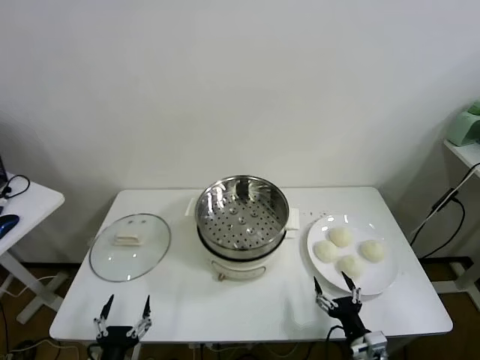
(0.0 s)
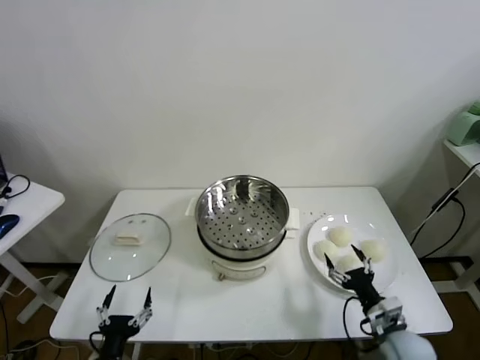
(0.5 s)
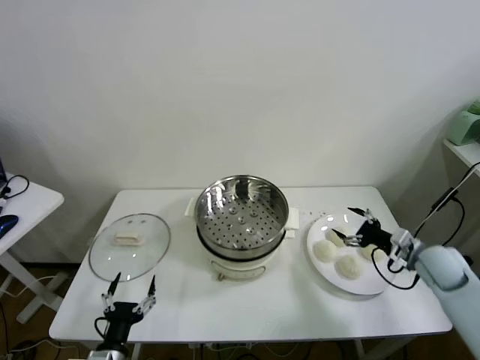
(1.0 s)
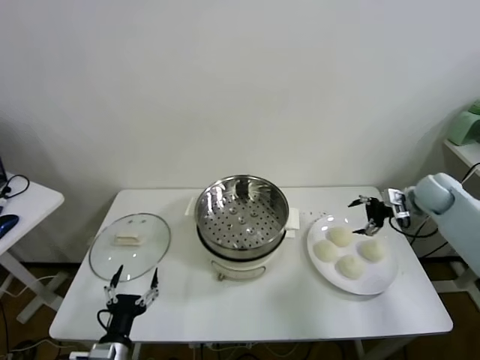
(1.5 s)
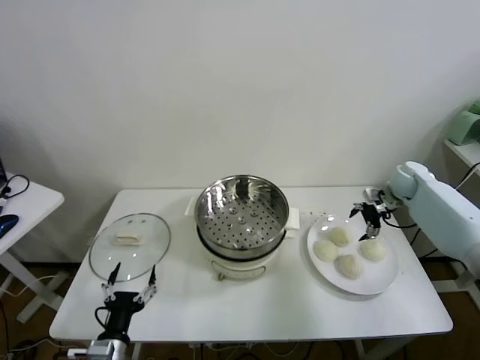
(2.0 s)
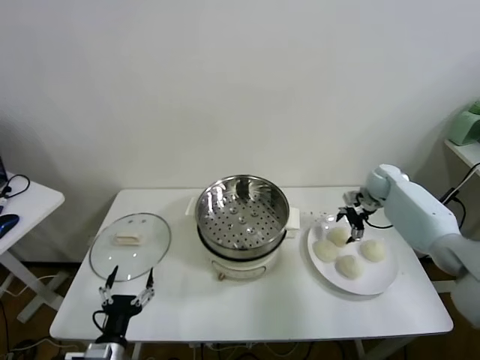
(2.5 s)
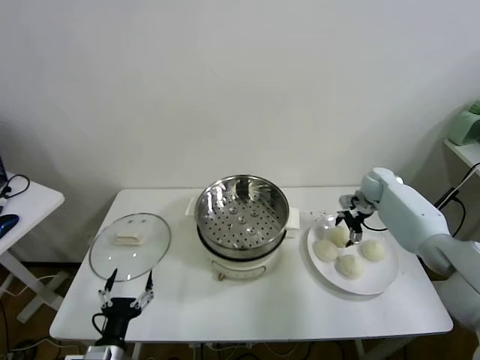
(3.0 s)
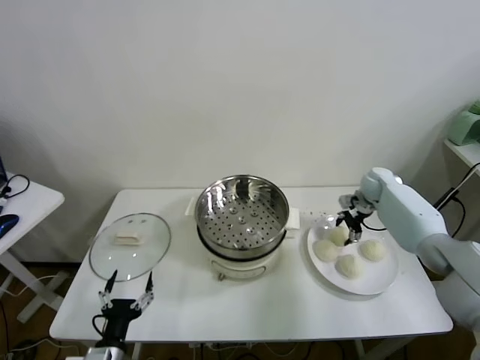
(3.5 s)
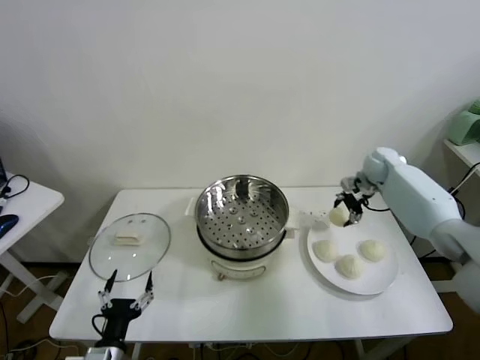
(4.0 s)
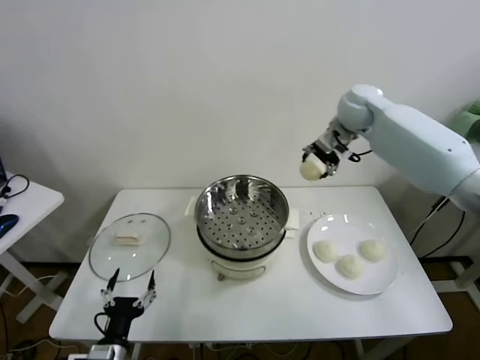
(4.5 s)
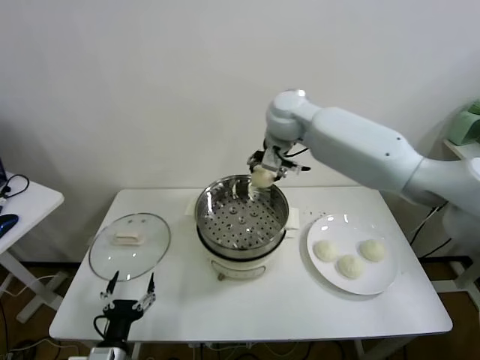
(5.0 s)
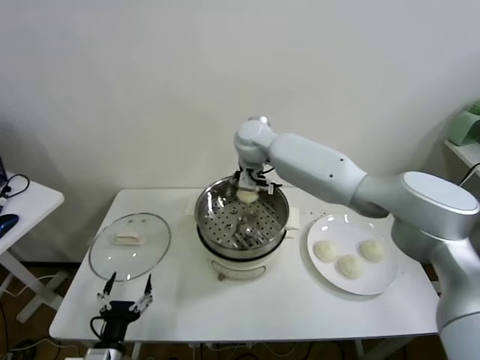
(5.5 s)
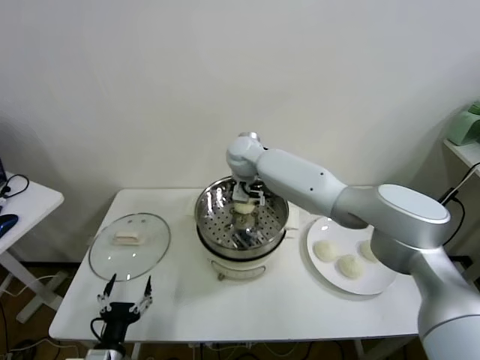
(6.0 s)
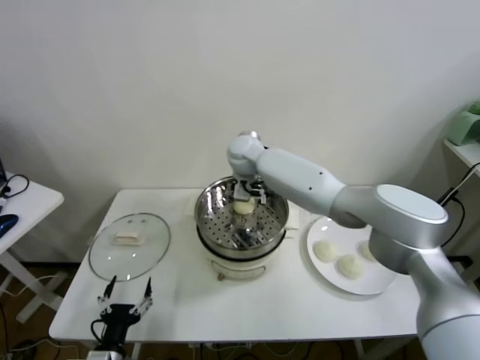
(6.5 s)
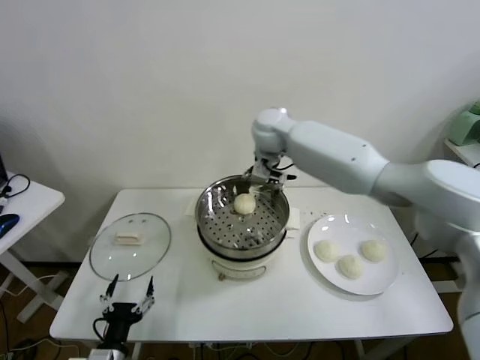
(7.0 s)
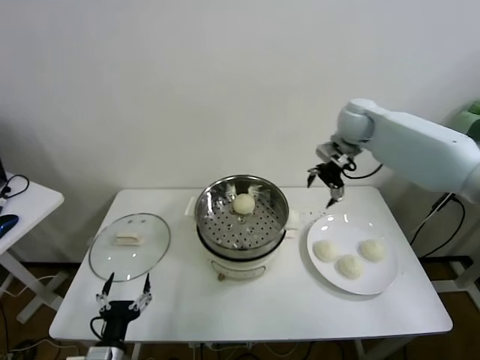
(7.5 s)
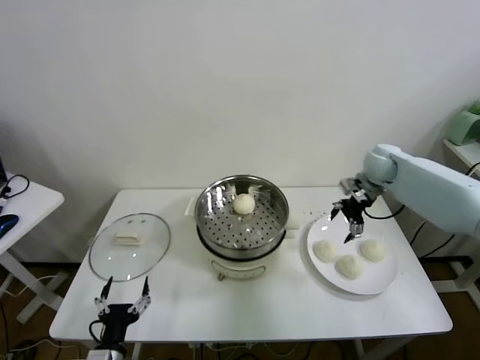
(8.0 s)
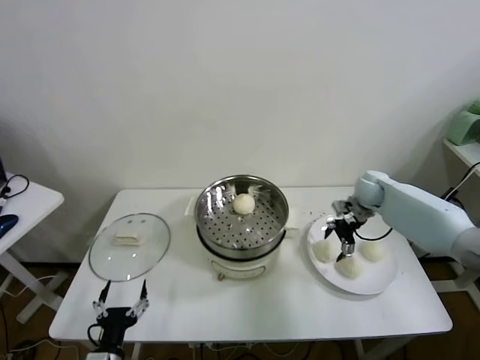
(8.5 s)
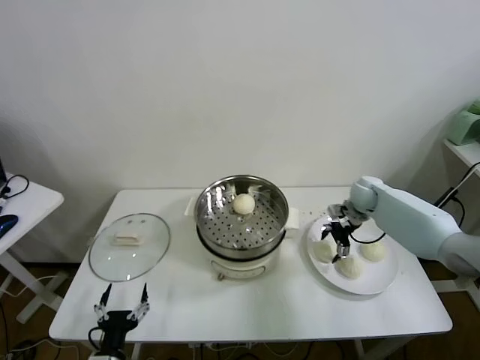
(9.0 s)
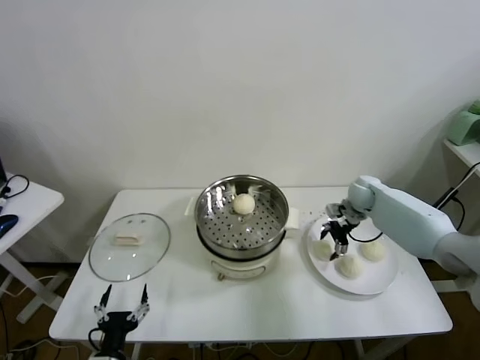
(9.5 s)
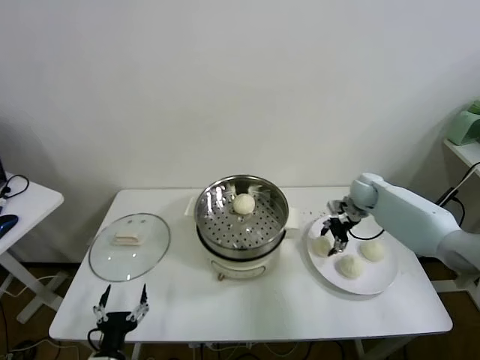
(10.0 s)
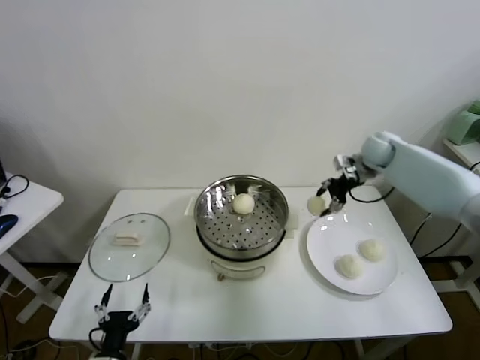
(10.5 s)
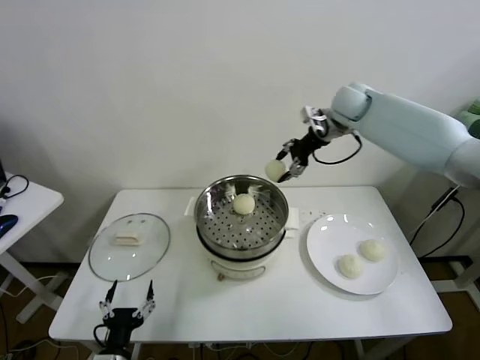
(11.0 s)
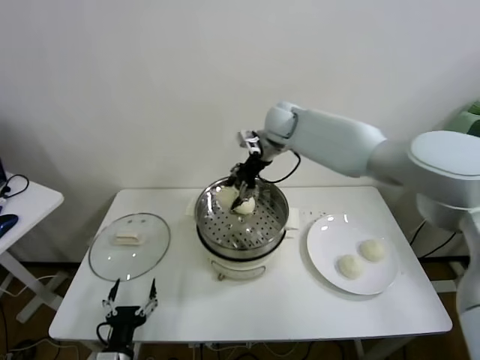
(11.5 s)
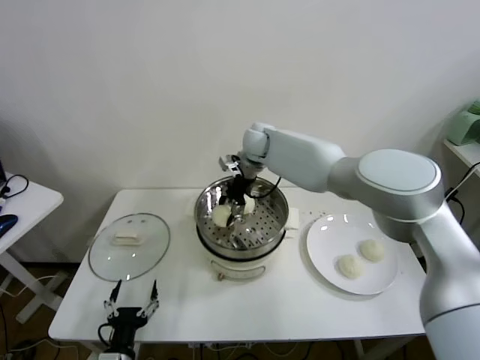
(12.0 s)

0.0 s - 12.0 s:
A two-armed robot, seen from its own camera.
Task of the whole recording: take steamed baozi put them in steamer.
Step, 0.0 s - 3.0 s: Grasp the baozi in the plate with right gripper.
Step, 3.5 s - 6.5 s: Place the baozi on the steamer with right gripper.
Step, 7.0 s - 9.5 s: Grasp the baozi in the plate with right gripper.
2.0 s - 4.0 s: The right gripper goes some 10 cm upward and to the left, and closes.
4.0 s - 6.0 s: The right gripper heads to the left, covering some 35 cm.
6.0 s - 8.0 s: The right gripper is displaced to the right by roughly 35 cm, and opens up.
8.0 s - 10.0 s: The right gripper goes about 5 cm downward, and closes its fingers.
10.0 s - 12.0 s: The right gripper travels to the left and upward by roughly 35 cm.

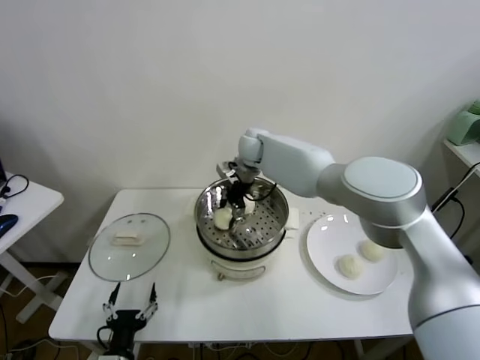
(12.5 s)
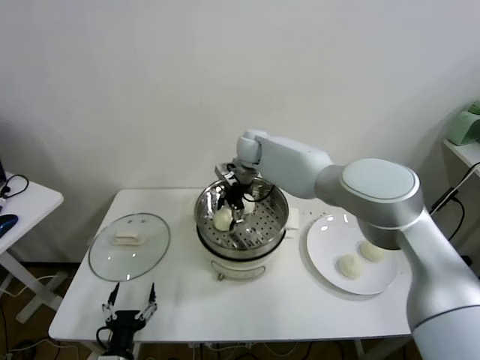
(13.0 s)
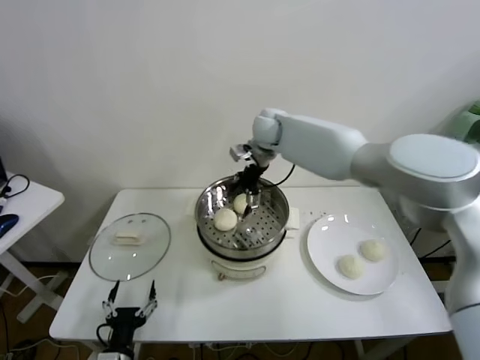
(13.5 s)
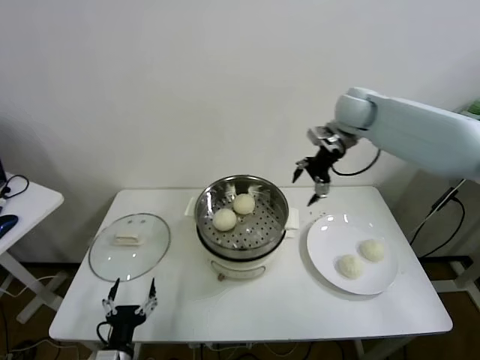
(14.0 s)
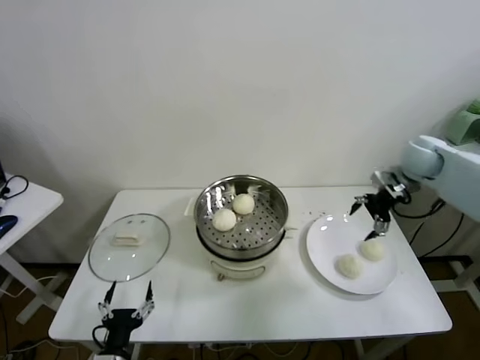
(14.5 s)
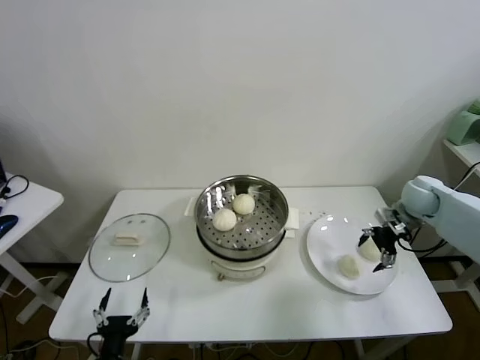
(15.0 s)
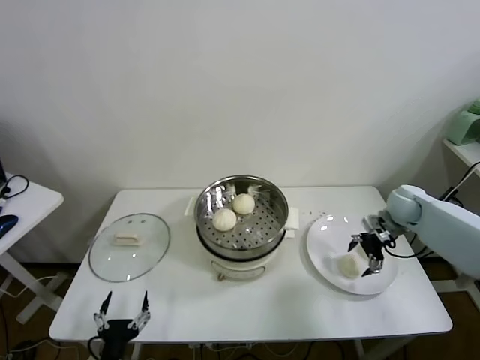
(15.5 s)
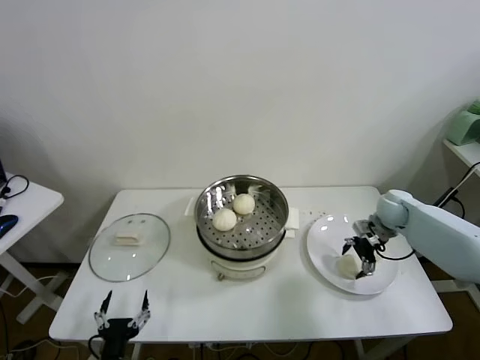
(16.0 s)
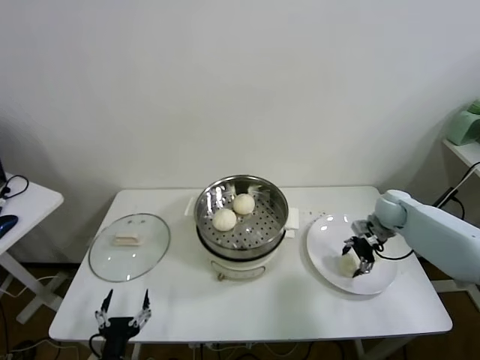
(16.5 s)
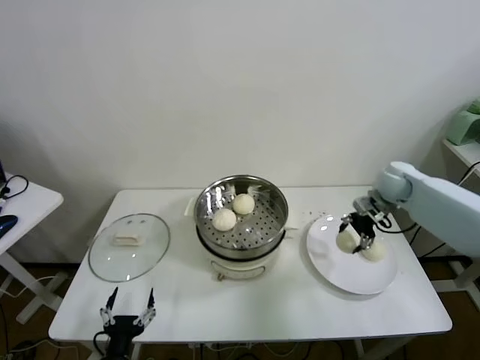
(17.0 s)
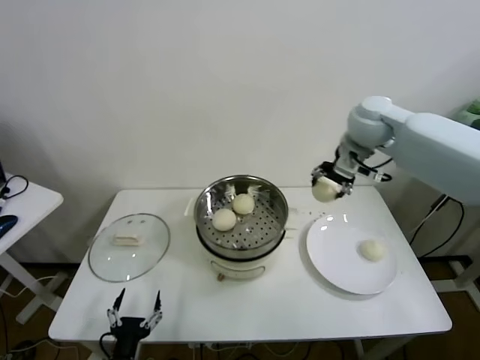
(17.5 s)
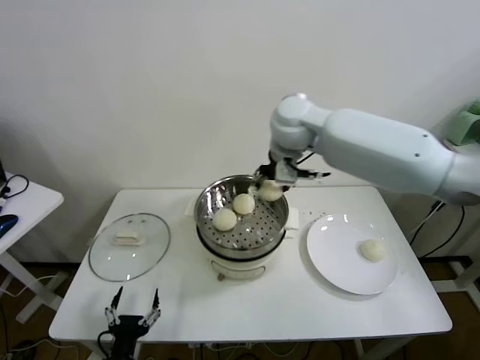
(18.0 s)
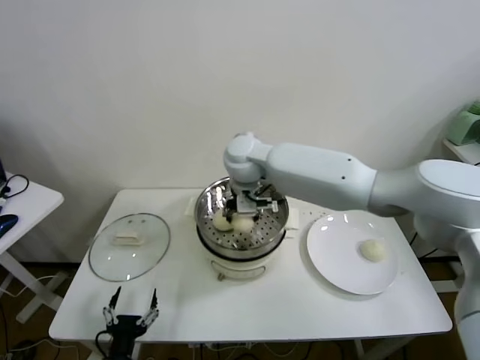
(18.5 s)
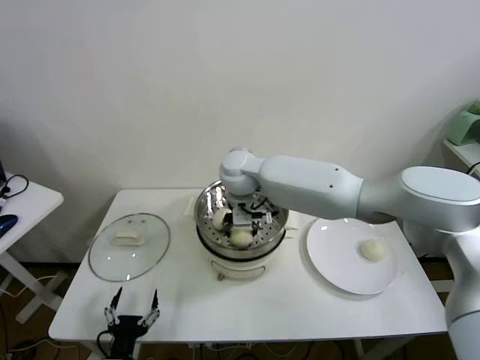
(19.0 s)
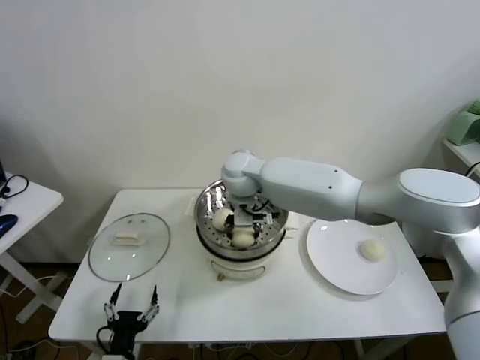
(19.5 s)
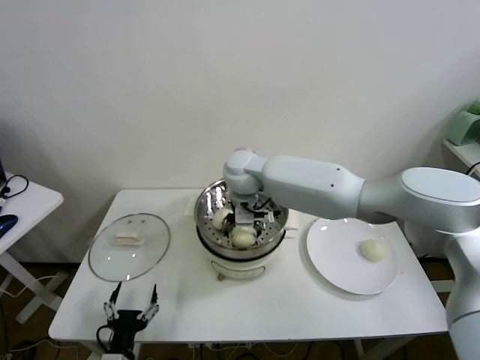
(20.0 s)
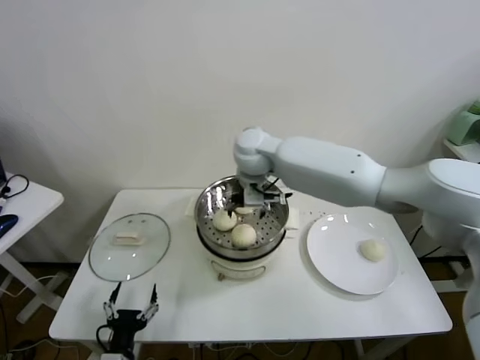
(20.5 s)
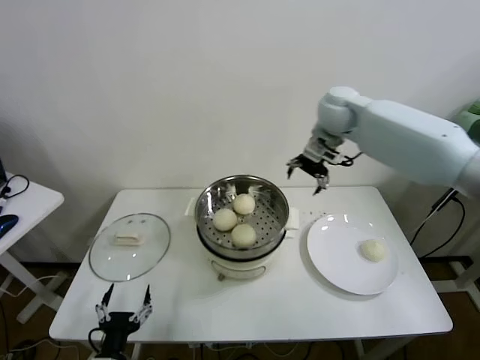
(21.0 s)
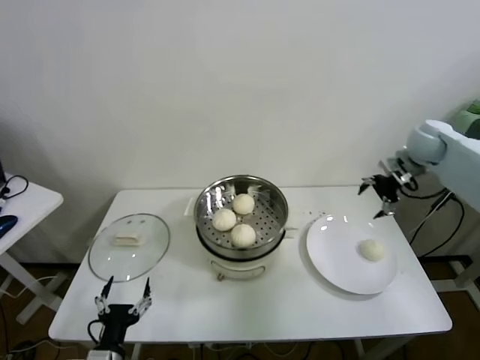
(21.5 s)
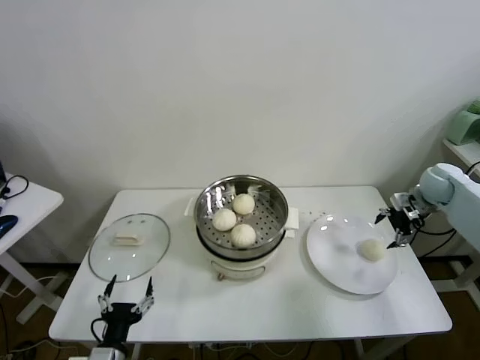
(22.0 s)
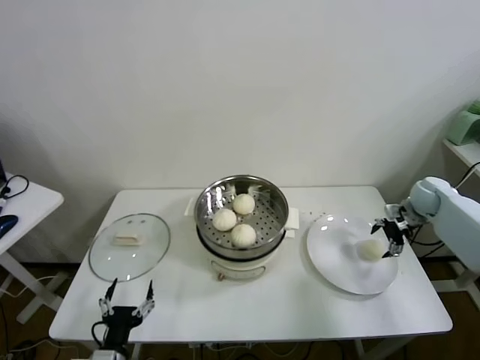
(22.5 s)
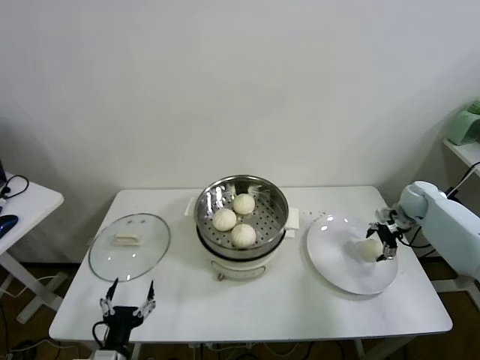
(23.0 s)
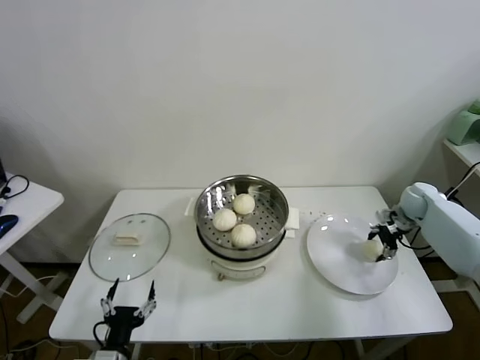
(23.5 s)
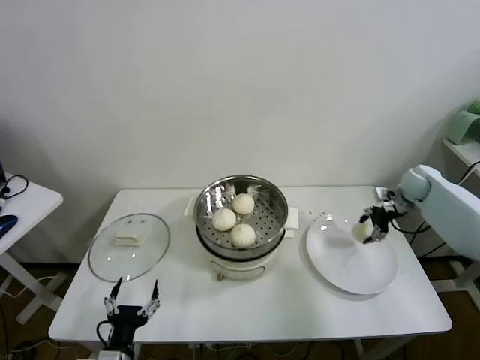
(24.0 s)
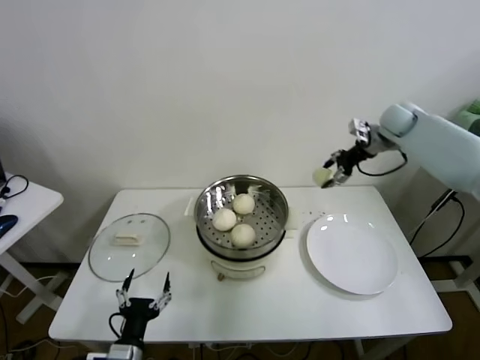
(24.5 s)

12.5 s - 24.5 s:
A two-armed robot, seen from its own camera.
Task of the whole recording: take steamed baozi put them in steamer.
Step, 13.5 s - 16.0 s: Grasp the baozi in the plate with right gripper.
Step, 16.5 s - 20.0 s: Place the baozi on the steamer with right gripper.
Step, 20.5 s - 23.5 s: Grasp the baozi in the plate with right gripper.
12.5 s - 14.5 s: The right gripper is displaced to the right by about 40 cm, and opens up.
14.5 s - 16.5 s: The right gripper goes approximately 15 cm downward, and closes its fingers.
16.5 s - 18.5 s: The right gripper travels to the left and upward by about 40 cm.
18.5 s - 20.5 s: The right gripper opens its fingers.
20.5 s - 22.5 s: The right gripper is displaced to the right by approximately 50 cm.
22.5 s - 24.5 s: The right gripper goes about 20 cm upward, to the left and forward, and closes its fingers.

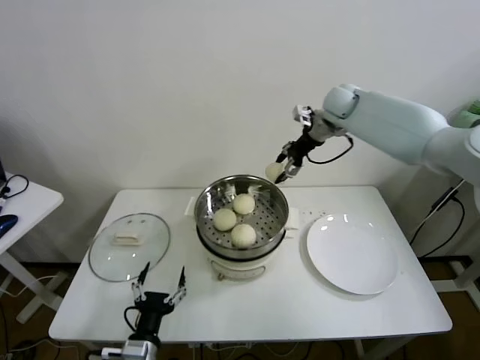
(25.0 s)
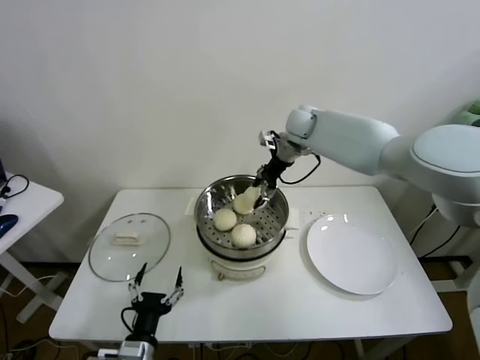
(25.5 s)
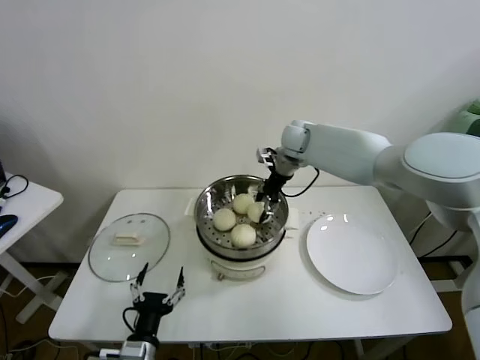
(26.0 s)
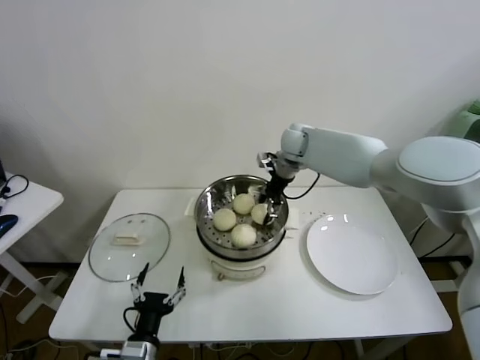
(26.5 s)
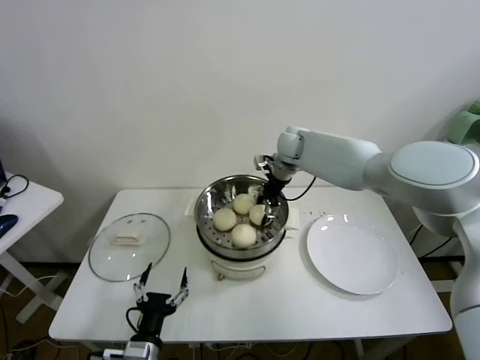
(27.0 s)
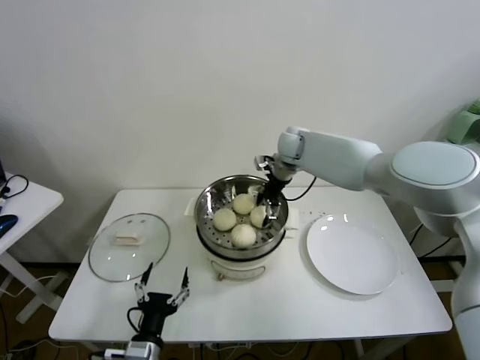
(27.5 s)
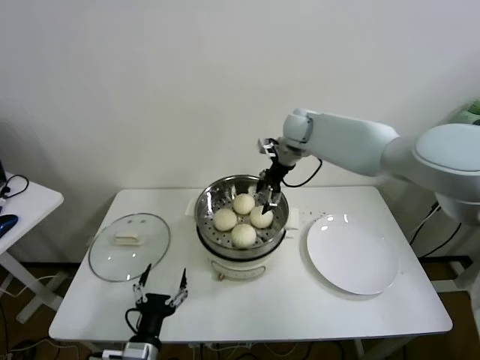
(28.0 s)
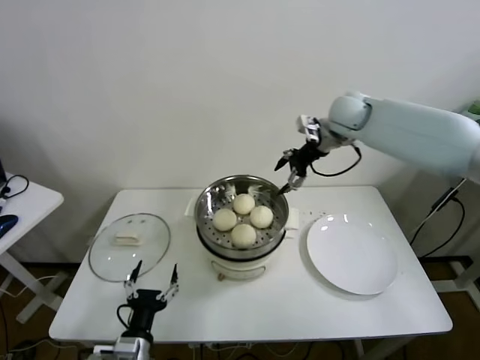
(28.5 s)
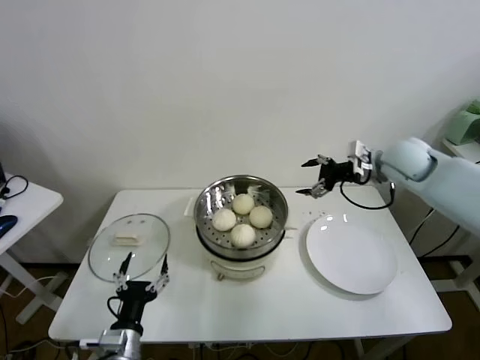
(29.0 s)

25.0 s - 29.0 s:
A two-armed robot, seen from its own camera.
Task of the whole recording: take steamed baozi put them in steamer.
Step, 25.0 s - 27.5 s: Place the baozi on the steamer with right gripper.
25.0 s - 27.0 s: The right gripper shifts some 15 cm to the left and downward.
27.0 s - 29.0 s: The right gripper travels to the right and backward by some 25 cm, and opens.
